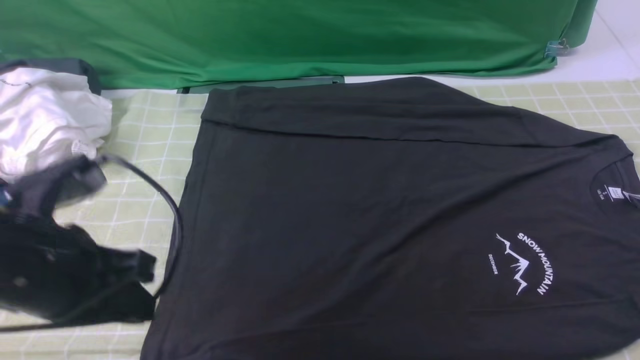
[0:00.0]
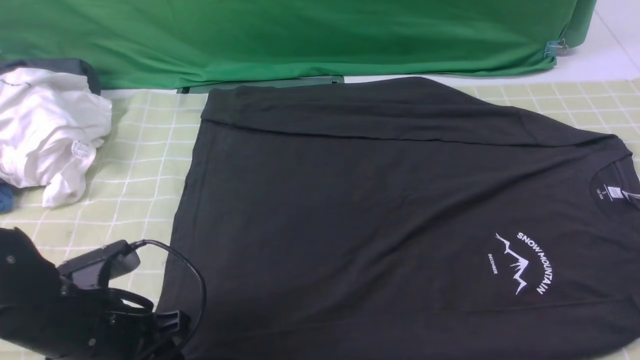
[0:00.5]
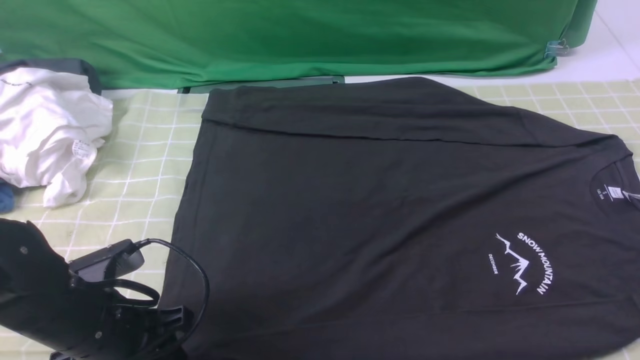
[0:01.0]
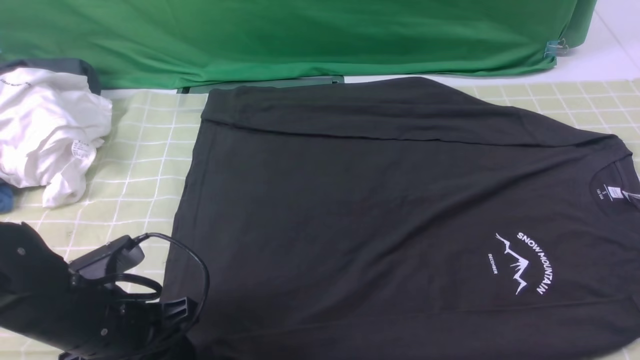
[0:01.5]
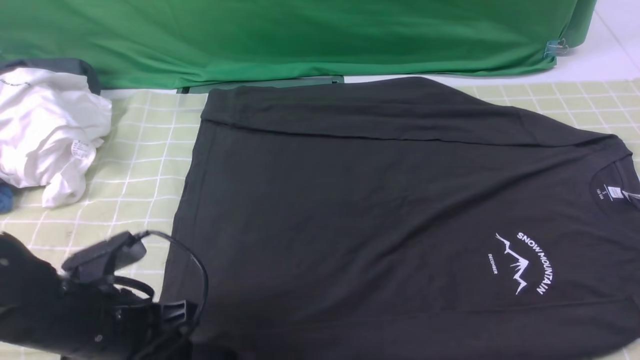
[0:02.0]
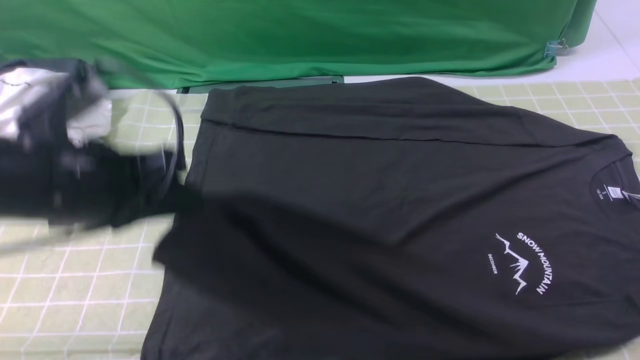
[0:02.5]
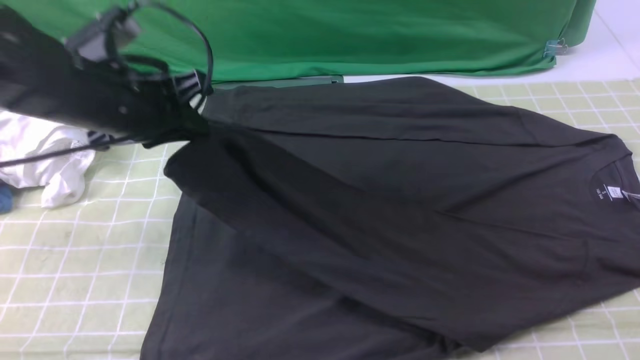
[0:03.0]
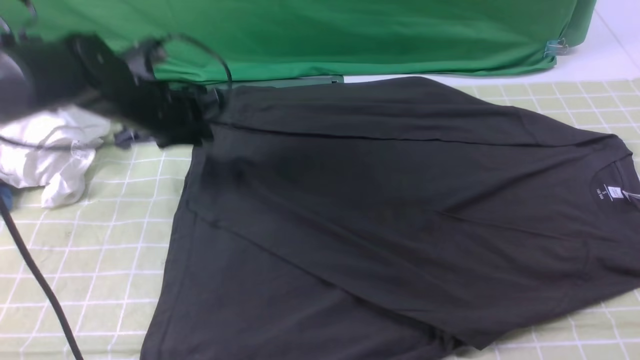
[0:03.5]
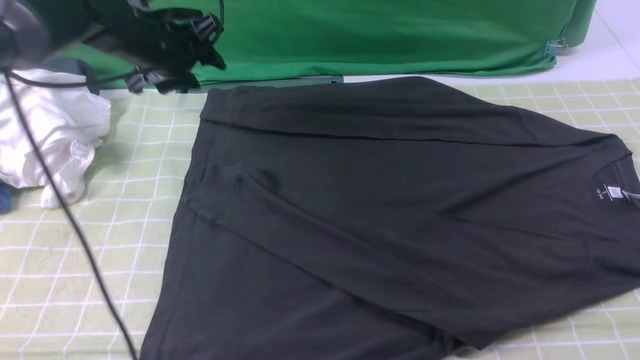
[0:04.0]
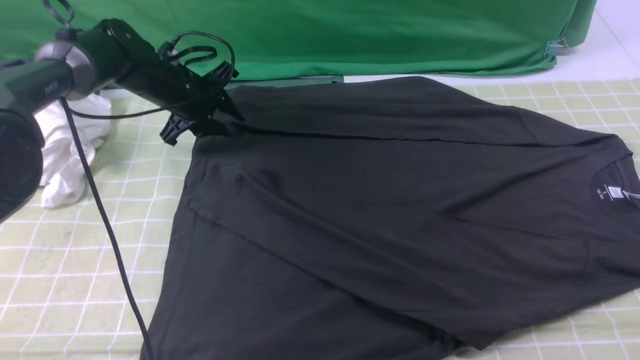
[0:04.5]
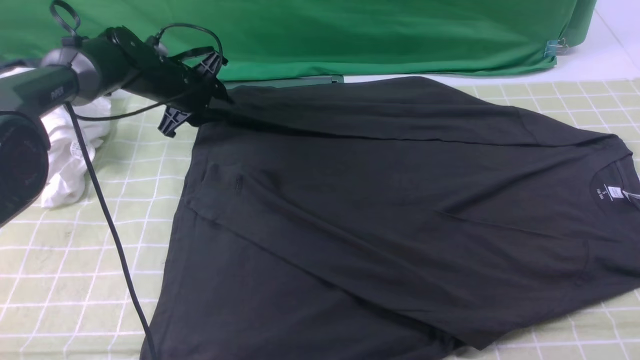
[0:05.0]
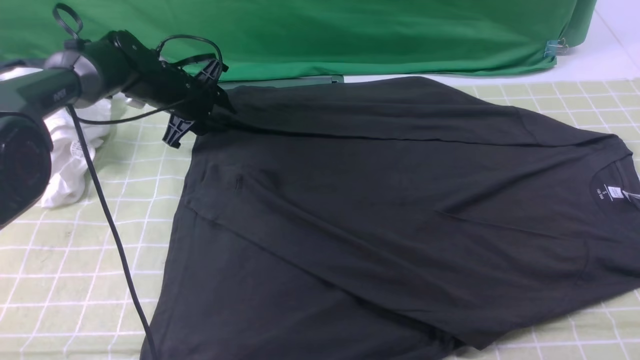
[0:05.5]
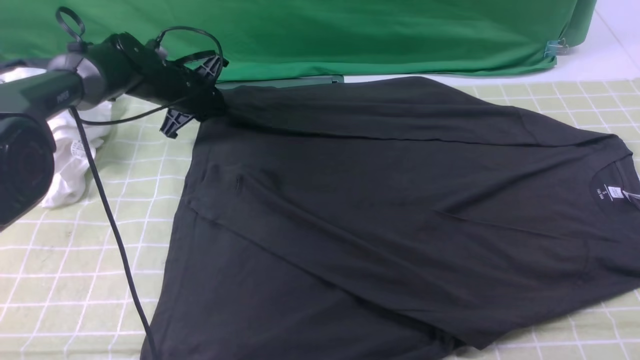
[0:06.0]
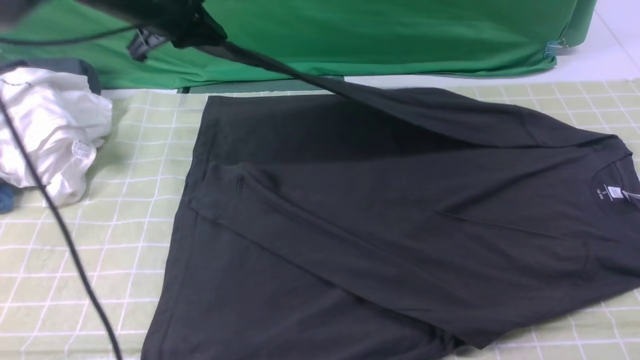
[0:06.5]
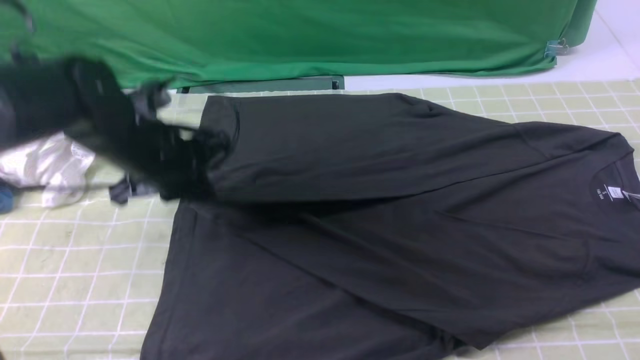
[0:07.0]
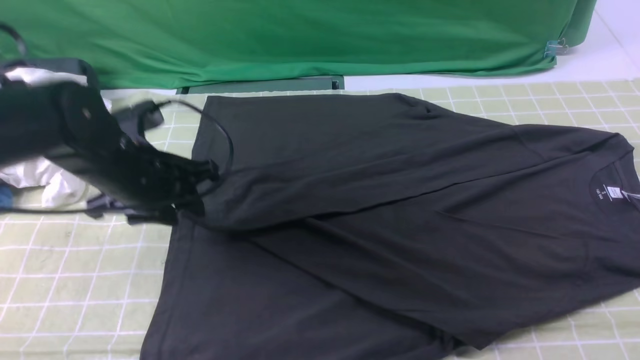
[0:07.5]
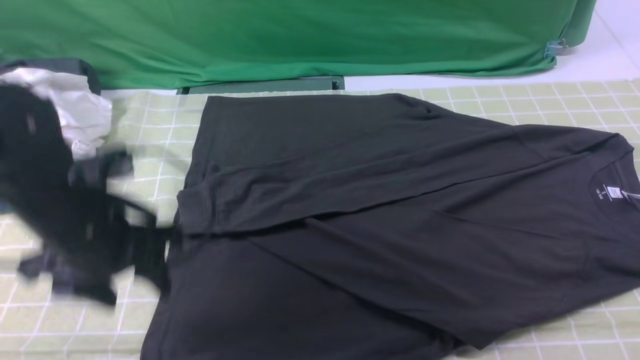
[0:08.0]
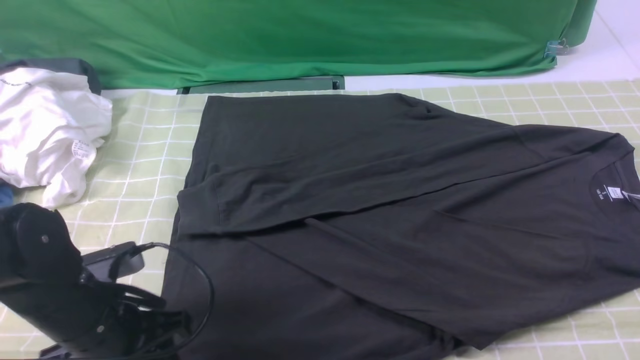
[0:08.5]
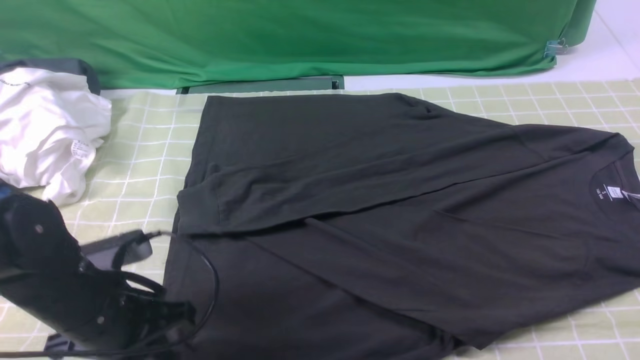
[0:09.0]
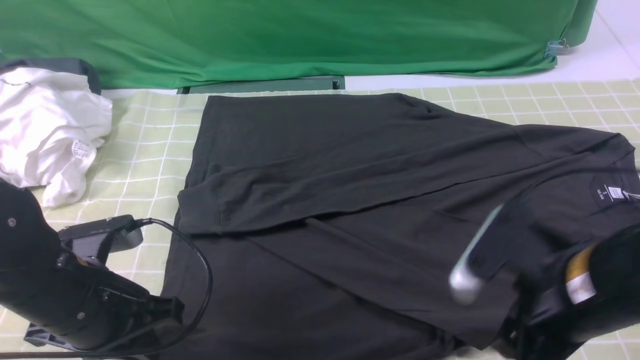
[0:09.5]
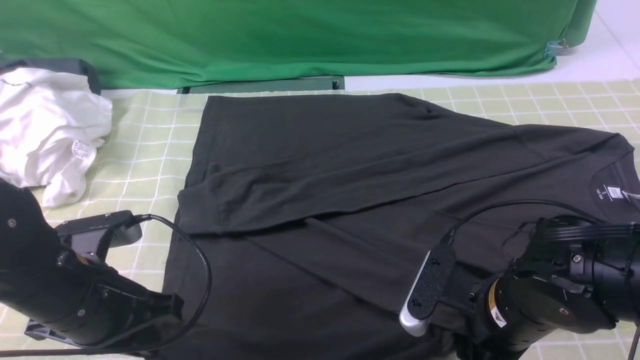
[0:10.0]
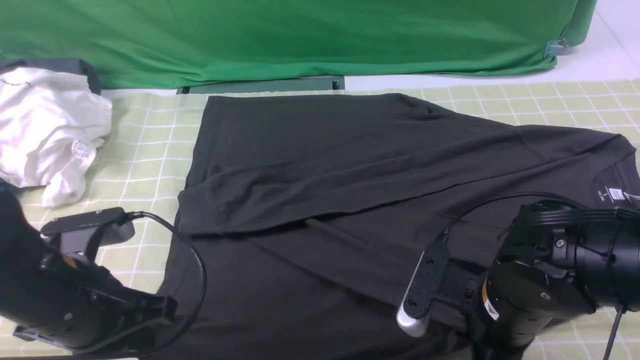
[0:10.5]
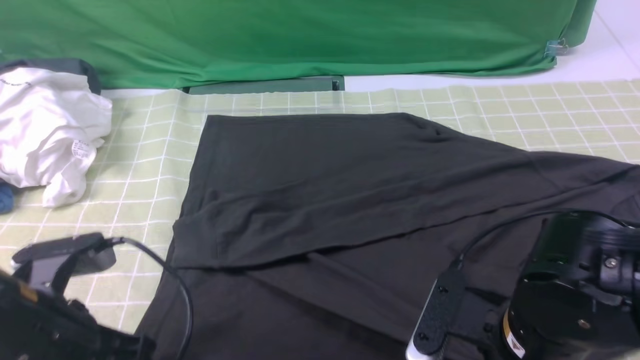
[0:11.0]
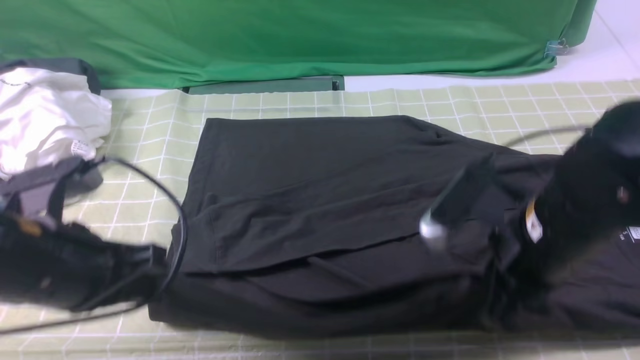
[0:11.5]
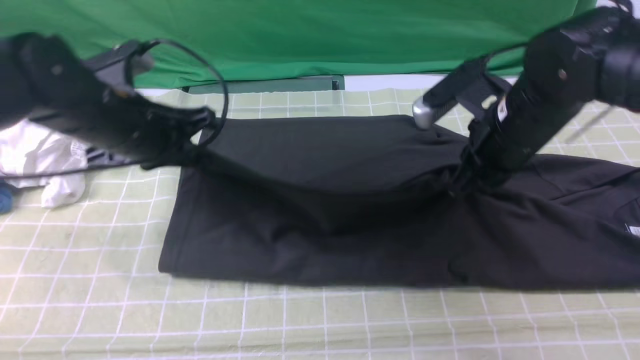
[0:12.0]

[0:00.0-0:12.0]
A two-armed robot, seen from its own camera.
Step, 0:02.0 to 0:03.5: use the left arm to drag and place the cuff at the centered position on the left edge of the fabric.
Step, 0:04.0 to 0:06.0: use the left arm to clamp the cuff farthest from it.
Step, 0:06.5 to 0:07.5: use the left arm to drag and drop the cuff onto the cuff closest to the left arm.
Step, 0:08.0 to 0:10.0: use both arms simultaneously to clamp the lower edge of the clothing fabric.
0:00.0 to 0:02.0: The left gripper travels downward by approximately 10 cm, and opens, then closes once more.
0:02.0 to 0:04.0: The left gripper travels forward by approximately 30 cm, and opens its fingers.
0:04.0 to 0:06.0: The left gripper travels downward by roughly 10 cm, and closes up.
0:06.0 to 0:08.0: The left gripper is displaced backward by some 30 cm, and opens.
0:08.0 to 0:10.0: The left gripper closes its fingers, while the right gripper goes some 25 cm downward and to the left.
0:10.0 to 0:12.0: The right gripper moves forward and upward, approximately 20 cm, and closes up. Meanwhile the left gripper moves forward, about 15 cm.

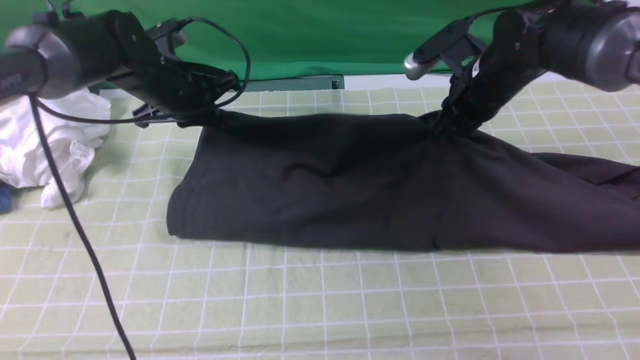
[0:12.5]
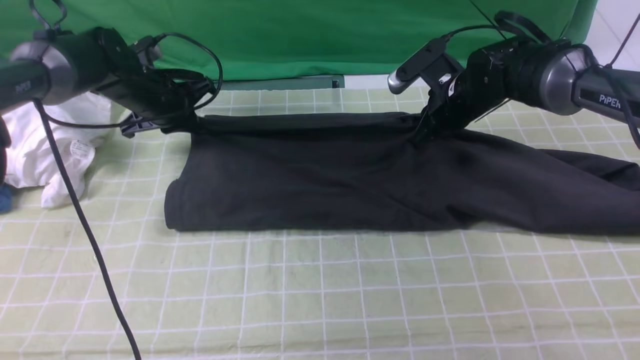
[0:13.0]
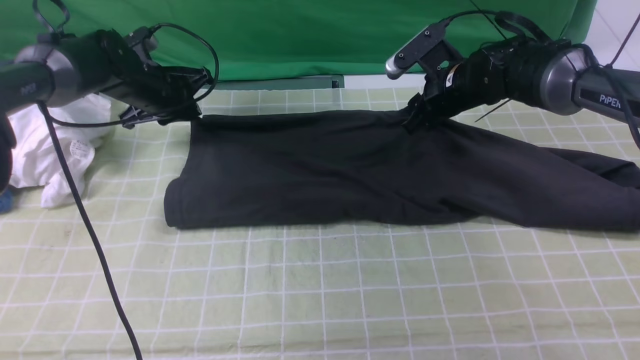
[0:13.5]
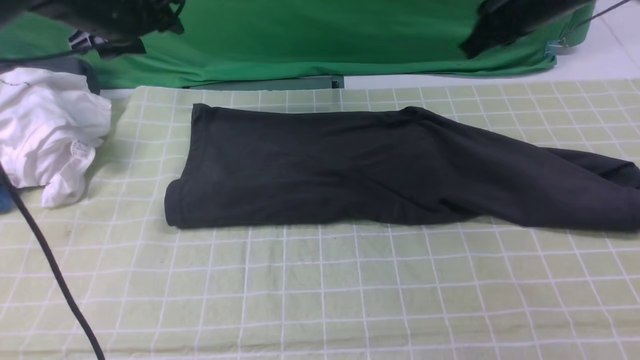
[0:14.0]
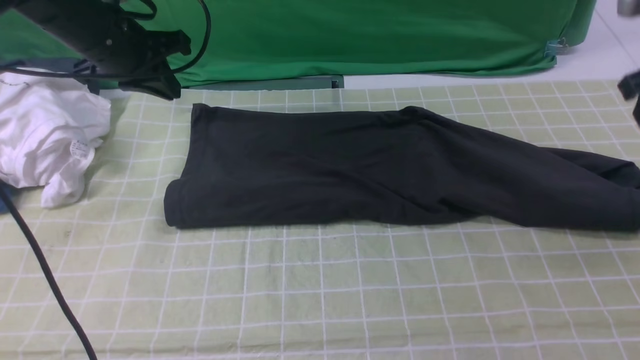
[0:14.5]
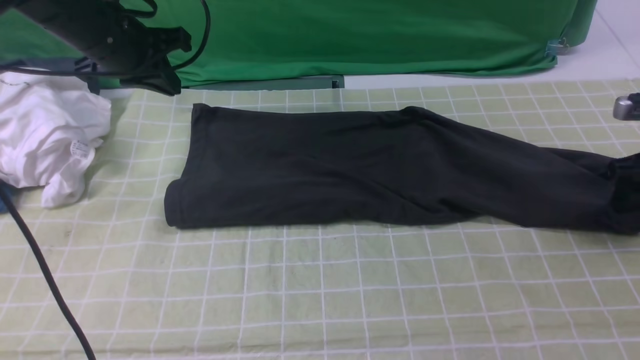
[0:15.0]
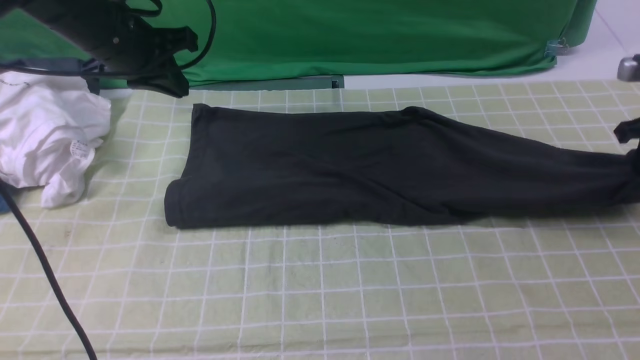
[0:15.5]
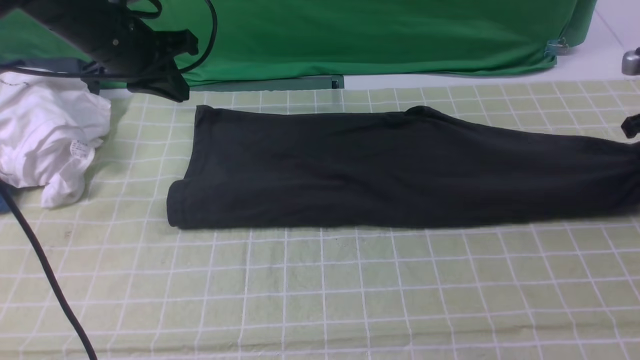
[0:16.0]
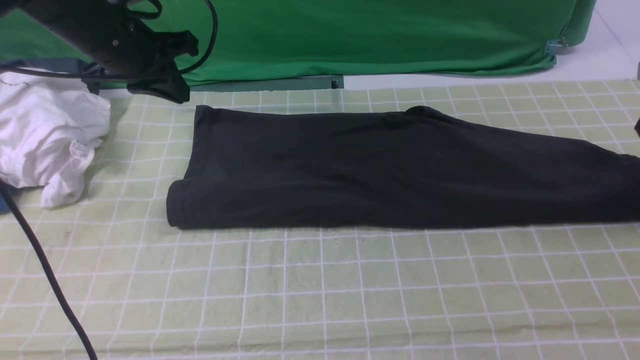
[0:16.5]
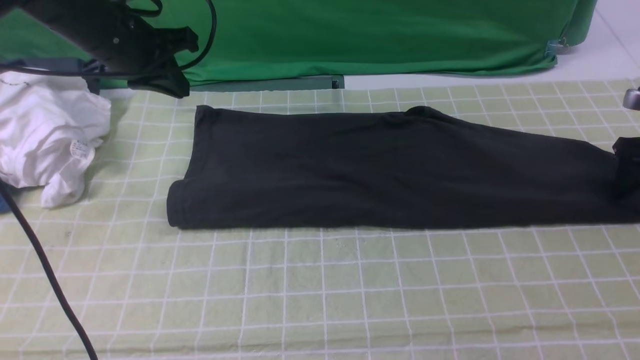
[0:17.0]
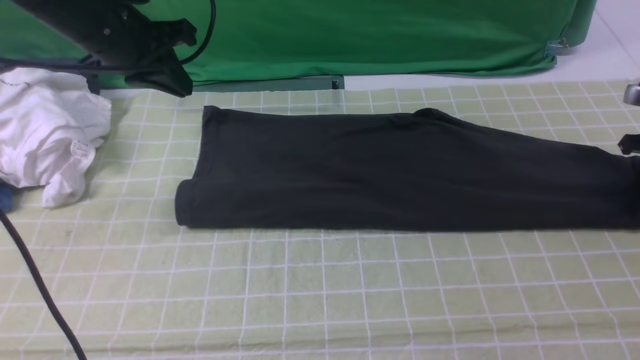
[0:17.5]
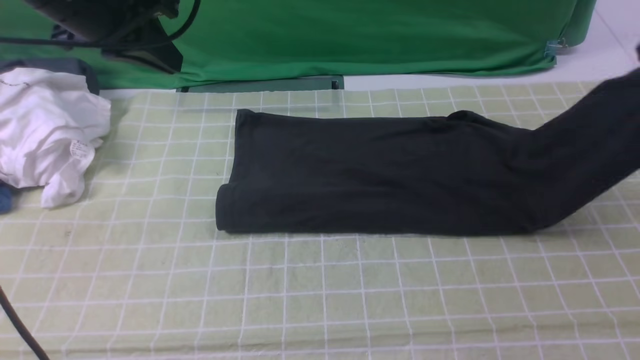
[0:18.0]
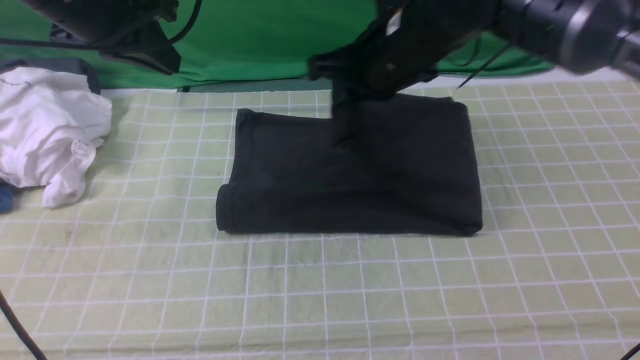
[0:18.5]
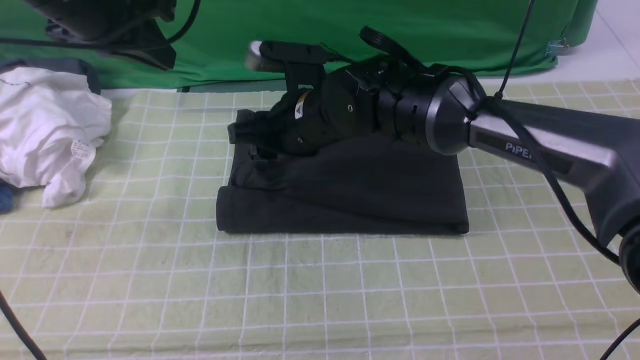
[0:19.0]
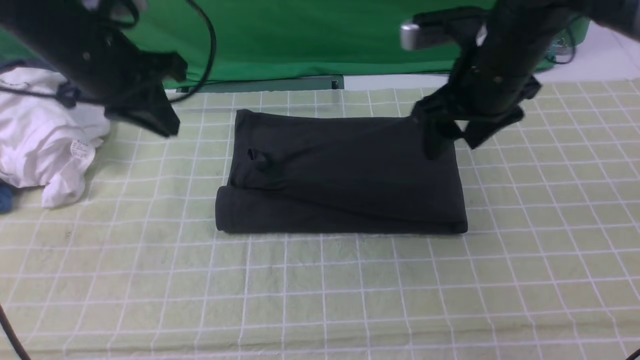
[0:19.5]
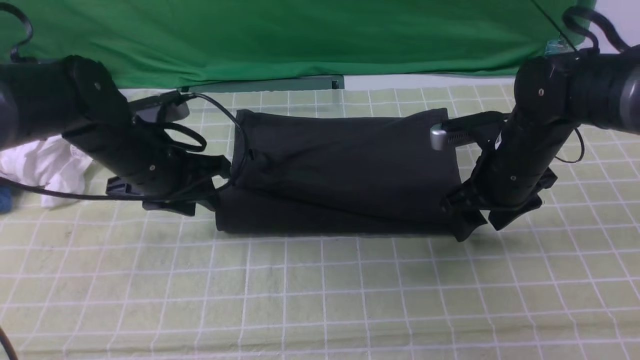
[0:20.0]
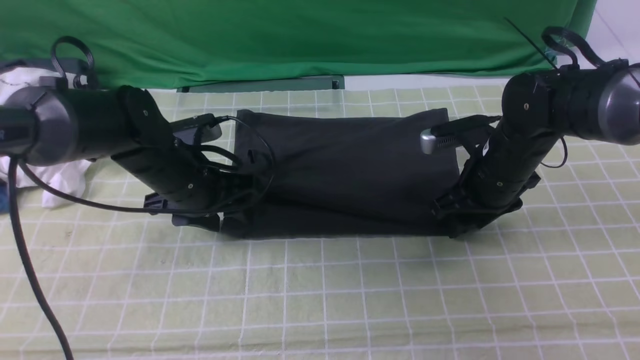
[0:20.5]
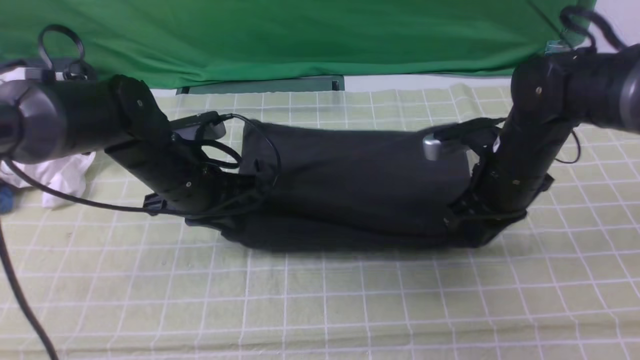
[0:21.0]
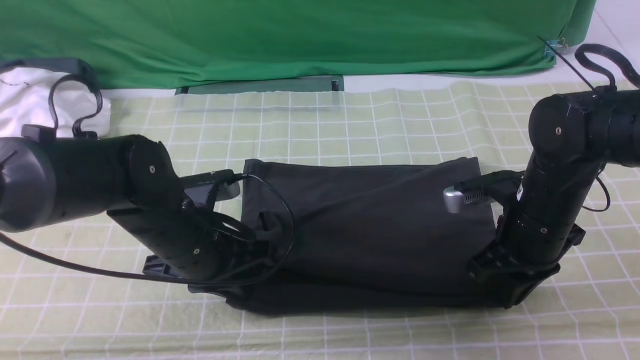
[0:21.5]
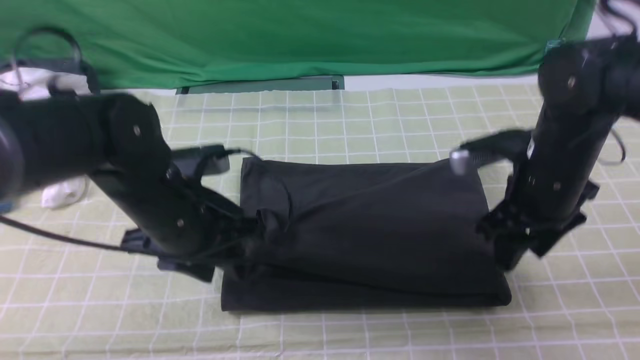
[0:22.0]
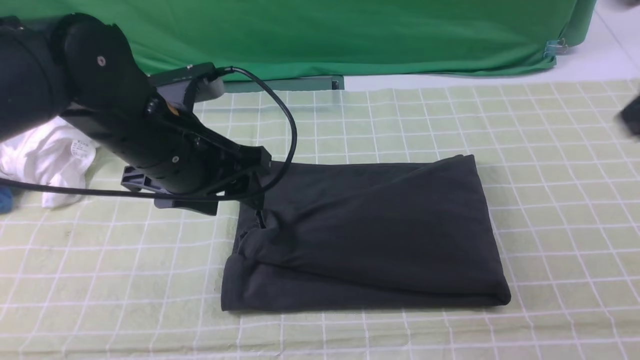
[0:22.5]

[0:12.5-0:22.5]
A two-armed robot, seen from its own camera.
Step, 0:14.0 to 0:17.0: use the right arm to clamp the right edge of the fabric.
Step, 0:17.5 to 0:19.0: use the right arm to drag the right edge of the fabric to the left and folds it over the left edge.
0:12.5 to 0:14.5: The left gripper goes roughly 10 cm upward, and opens, then closes once more. The right gripper travels to the right and upward by about 20 cm, and opens up.
0:14.5 to 0:16.5: The right gripper goes some 15 cm downward, to the right and forward, and opens its fingers.
0:16.5 to 0:18.5: The left gripper travels upward and backward by some 10 cm. The right gripper moves to the left, about 35 cm, and closes its fingers.
0:18.5 to 0:20.5: The right gripper goes some 20 cm downward and to the right, and opens its fingers. Meanwhile the left gripper is displaced downward by about 20 cm, and opens its fingers.
0:20.5 to 0:22.5: The right gripper heads upward and backward, covering roughly 30 cm, and closes up; the left gripper travels upward and backward by approximately 15 cm, and closes and opens again.
